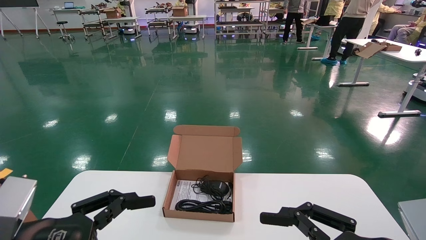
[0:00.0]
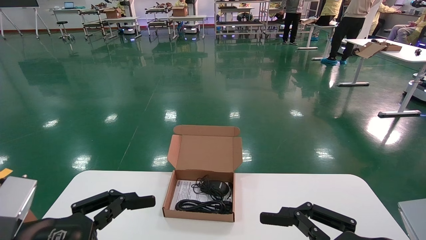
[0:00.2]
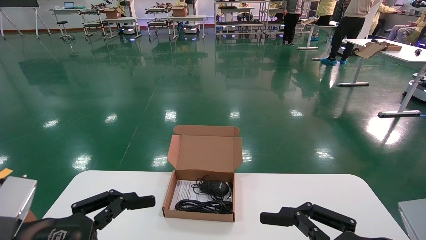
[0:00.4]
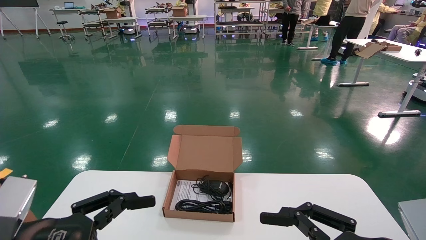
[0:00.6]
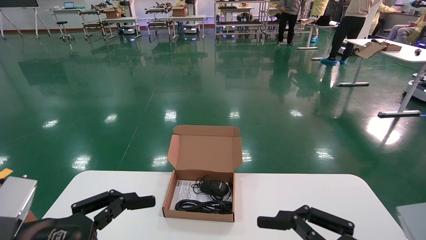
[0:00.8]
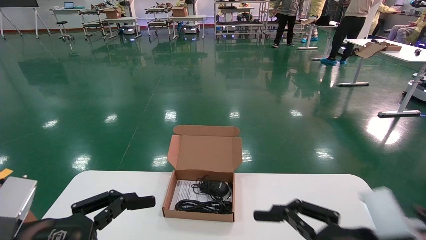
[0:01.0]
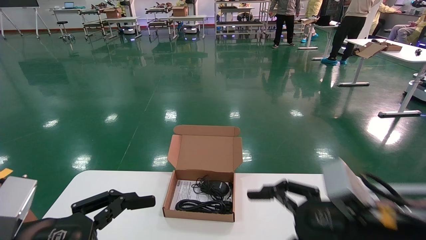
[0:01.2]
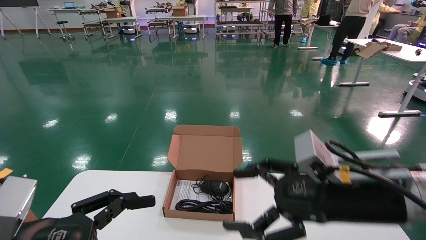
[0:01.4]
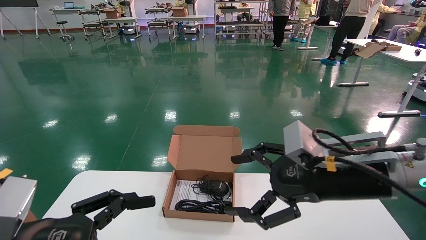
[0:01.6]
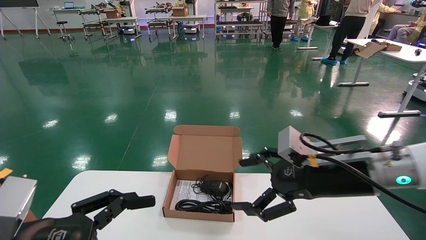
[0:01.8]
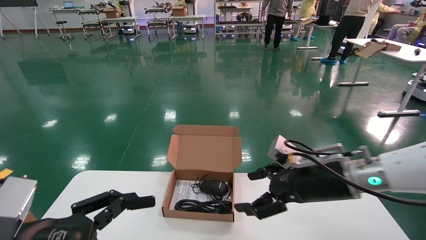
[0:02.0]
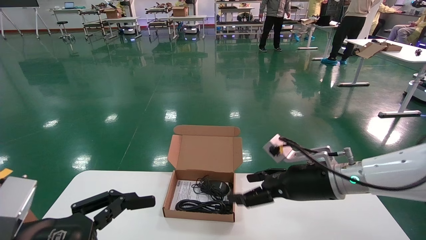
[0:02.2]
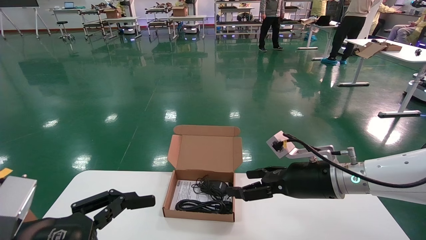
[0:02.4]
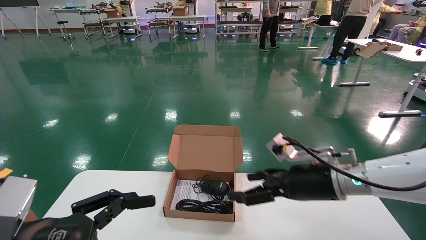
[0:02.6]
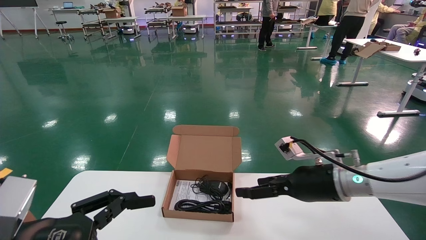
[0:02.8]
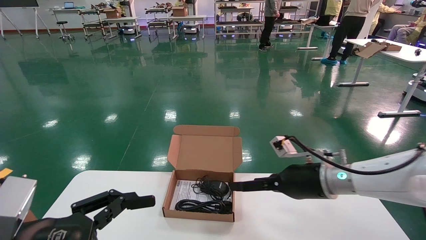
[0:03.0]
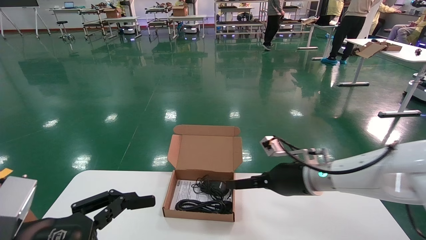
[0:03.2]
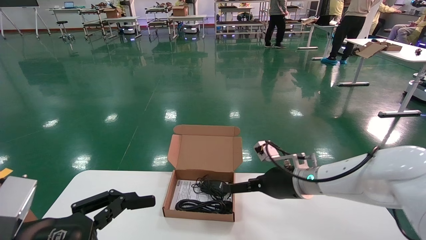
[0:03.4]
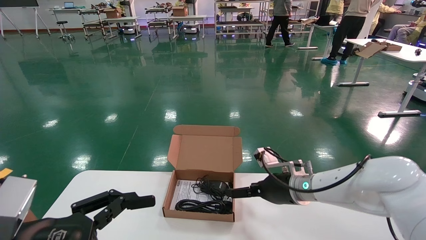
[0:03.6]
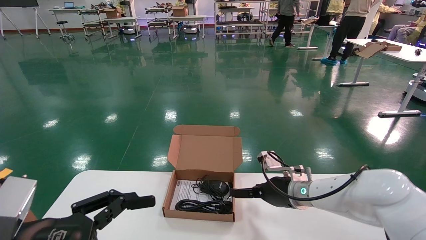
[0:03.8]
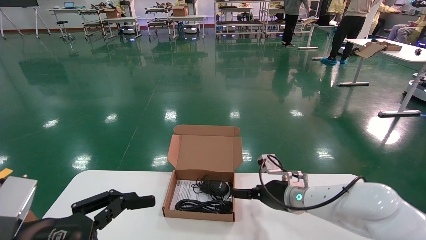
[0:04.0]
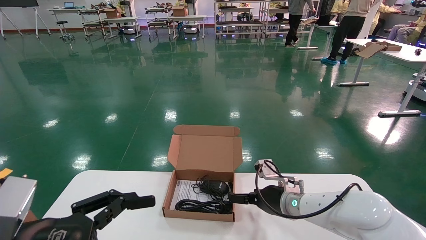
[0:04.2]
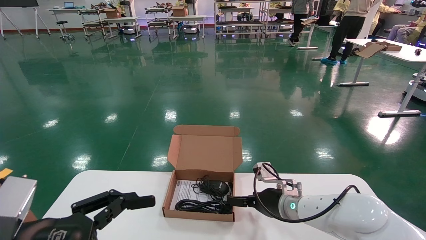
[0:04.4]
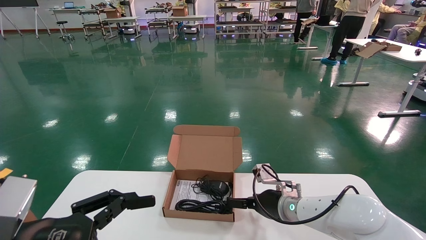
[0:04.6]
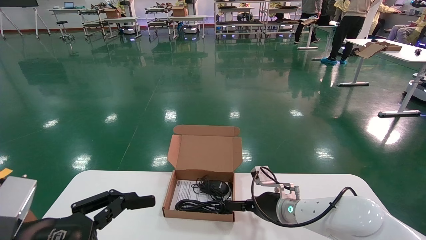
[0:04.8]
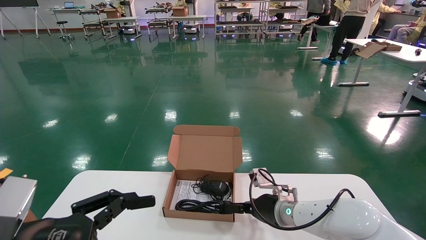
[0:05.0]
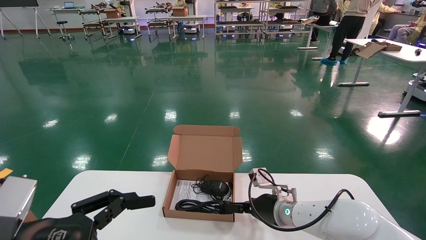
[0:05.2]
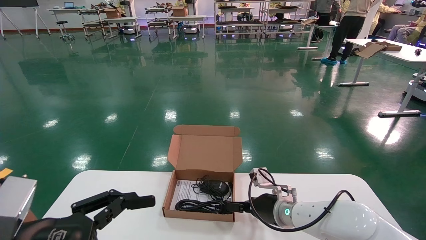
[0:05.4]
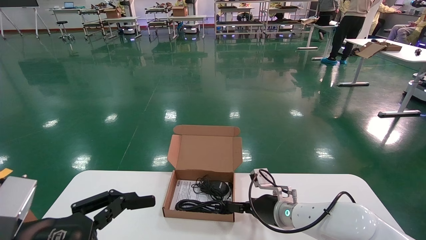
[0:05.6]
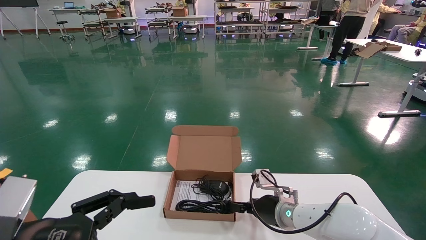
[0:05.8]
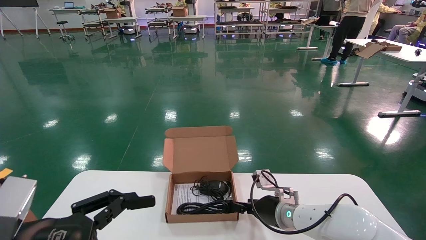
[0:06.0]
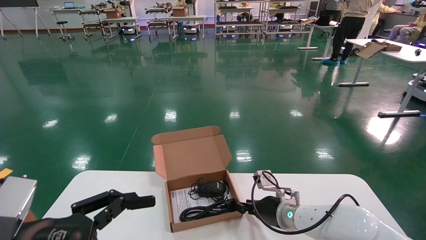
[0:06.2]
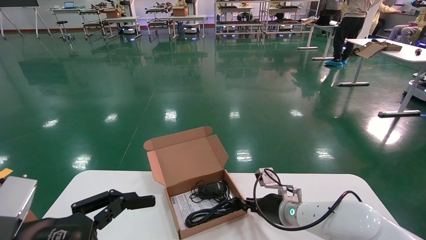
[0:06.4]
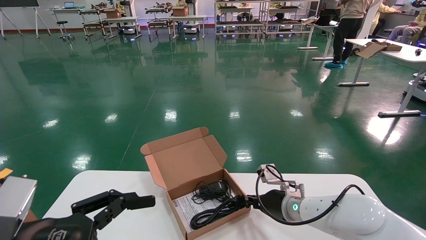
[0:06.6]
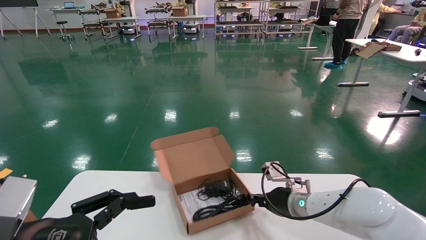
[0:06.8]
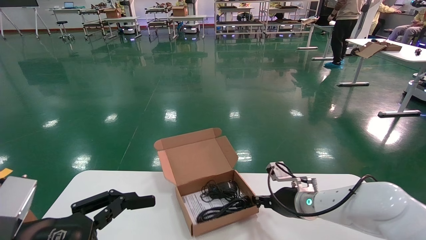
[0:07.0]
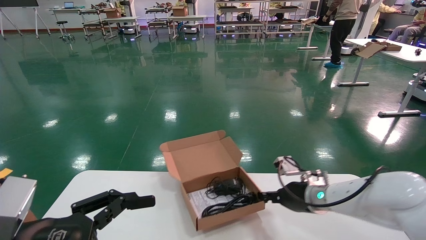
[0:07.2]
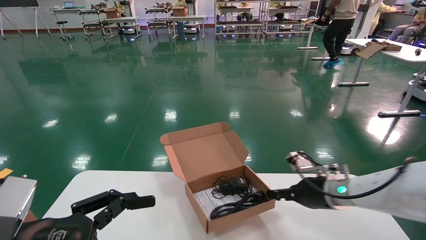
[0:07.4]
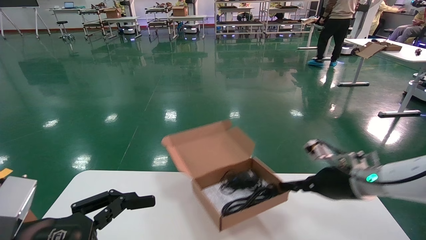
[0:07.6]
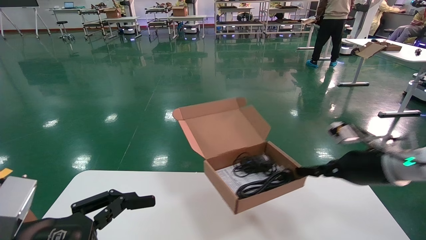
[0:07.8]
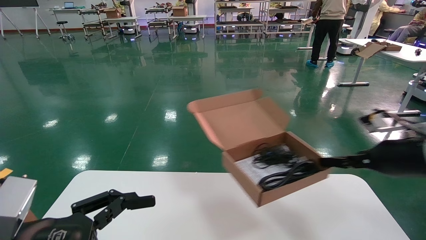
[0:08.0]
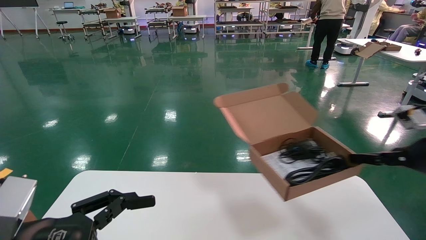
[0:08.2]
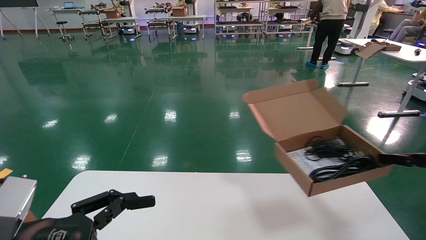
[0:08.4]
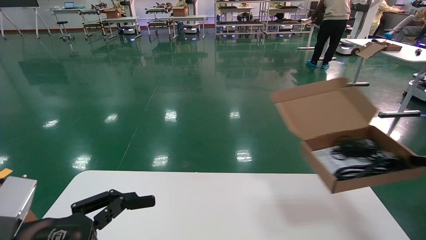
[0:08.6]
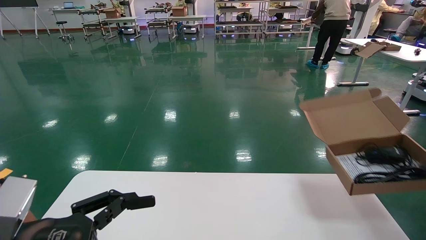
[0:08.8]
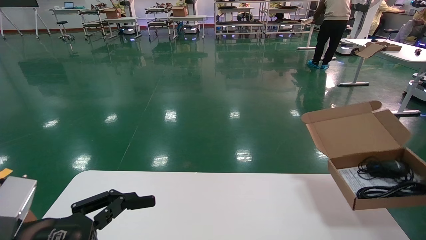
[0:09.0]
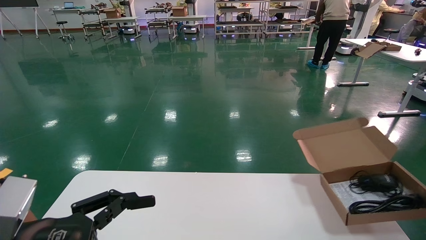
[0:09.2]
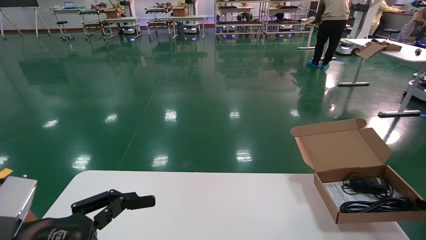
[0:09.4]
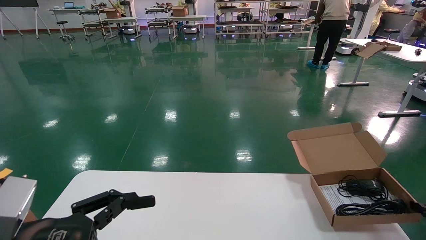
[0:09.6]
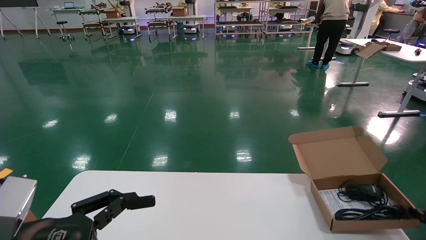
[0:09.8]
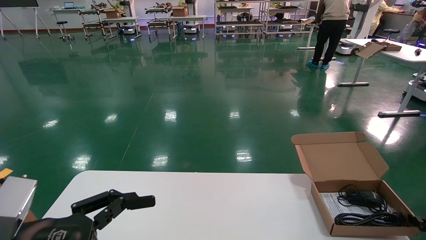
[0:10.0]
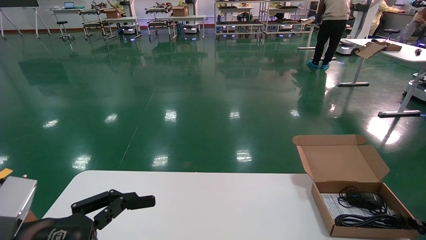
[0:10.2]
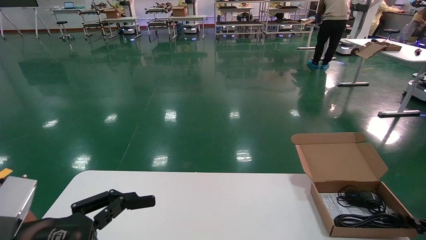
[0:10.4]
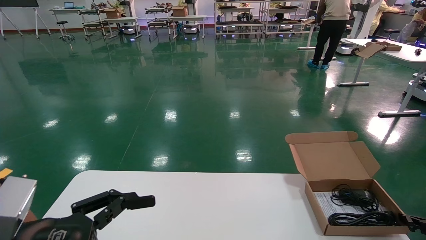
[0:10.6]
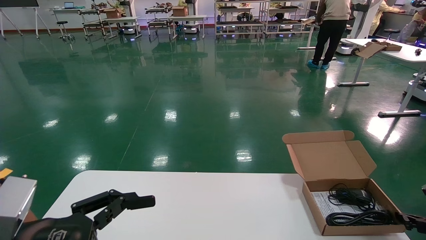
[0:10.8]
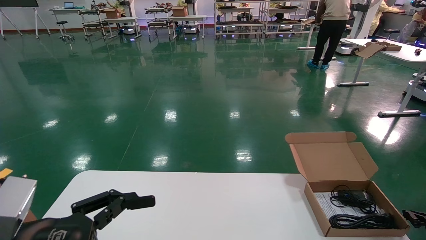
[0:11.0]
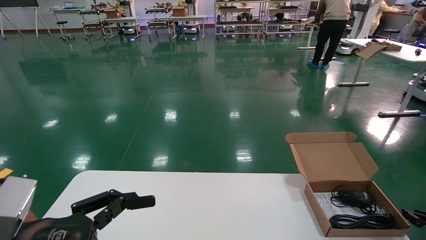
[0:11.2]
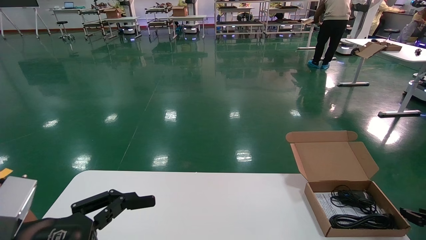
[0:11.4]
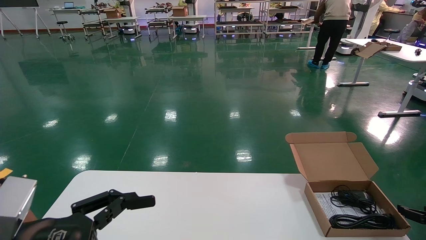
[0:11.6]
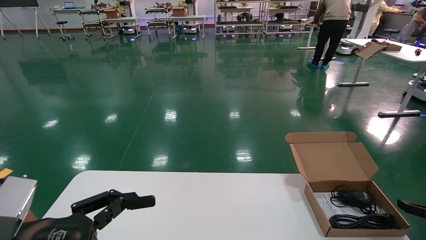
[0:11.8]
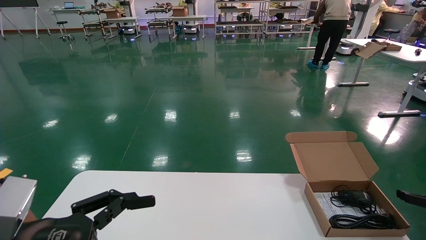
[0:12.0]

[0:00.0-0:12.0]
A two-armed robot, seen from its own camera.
Task of the whole recording: move the position of the storage box with accessories on the table.
Step, 0:01.0 to 0:06.8: Grab and pick up the open mouse box from the accessory packaging area.
Step, 0:07.0 to 0:11.0: Place the open mouse box onto the operation table.
0:00.0 to 0:01.6: The right gripper shifts roughly 15 cm forward and upward.
0:01.6 to 0:03.0: The right gripper travels forward and downward by some 15 cm.
0:03.0 to 0:04.4: The right gripper goes roughly 10 cm downward and forward.
0:04.4 to 0:06.0: The right gripper closes.
0:06.0 to 0:07.6: The right gripper heads to the right, upward and backward, covering approximately 20 cm, and closes up.
0:07.6 to 0:09.0: The right gripper heads to the right, covering about 25 cm.
0:09.0 to 0:10.4: The right gripper goes roughly 10 cm downward.
0:10.4 to 0:12.0: The right gripper heads upward, covering roughly 5 cm, and opens its fingers.

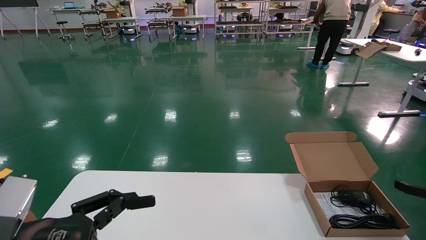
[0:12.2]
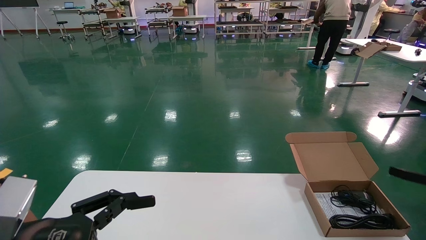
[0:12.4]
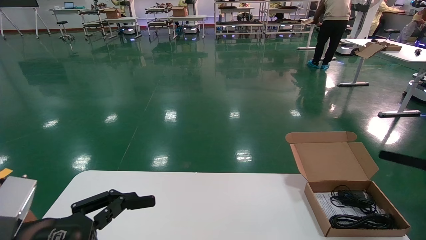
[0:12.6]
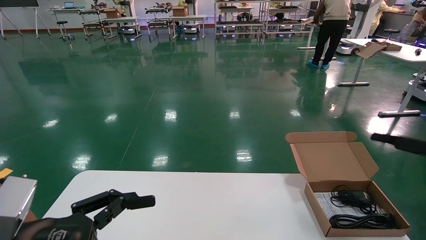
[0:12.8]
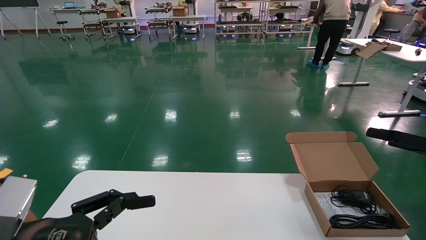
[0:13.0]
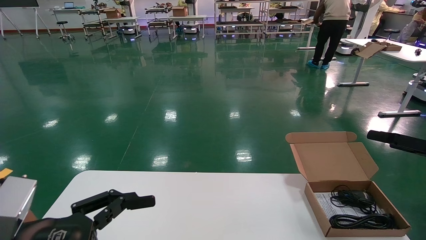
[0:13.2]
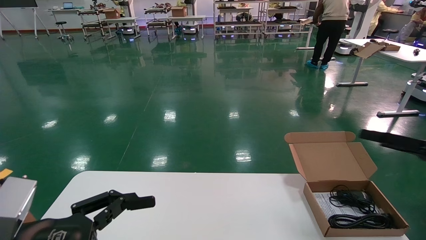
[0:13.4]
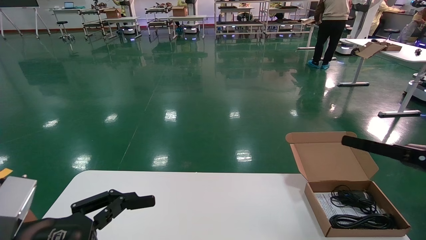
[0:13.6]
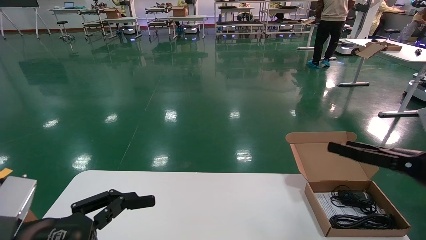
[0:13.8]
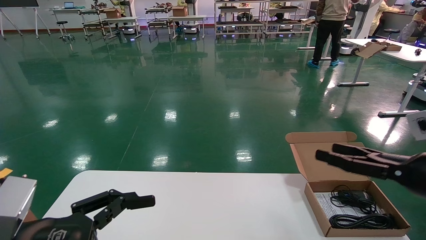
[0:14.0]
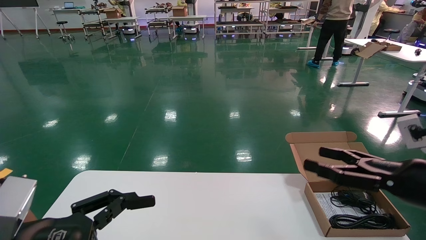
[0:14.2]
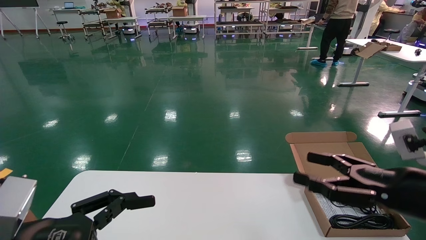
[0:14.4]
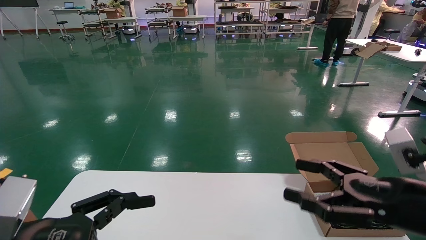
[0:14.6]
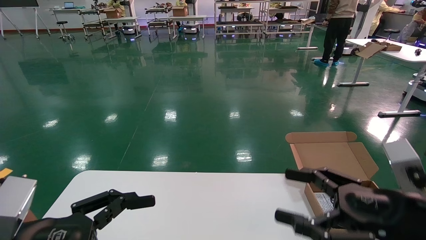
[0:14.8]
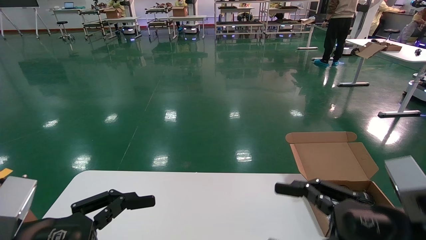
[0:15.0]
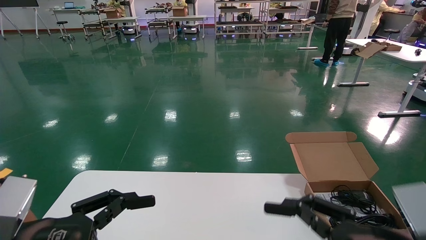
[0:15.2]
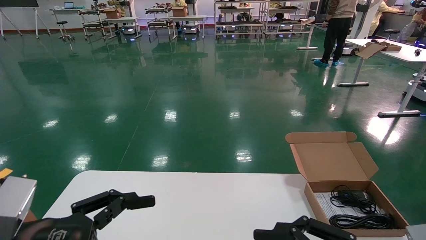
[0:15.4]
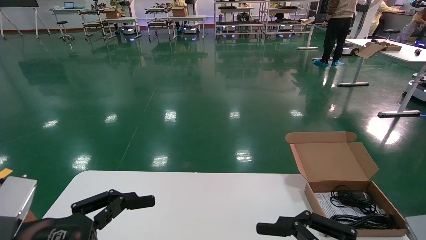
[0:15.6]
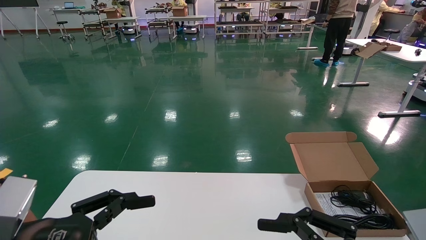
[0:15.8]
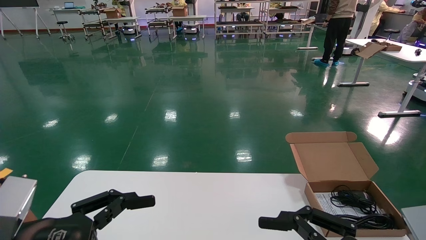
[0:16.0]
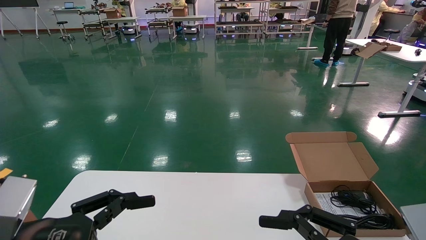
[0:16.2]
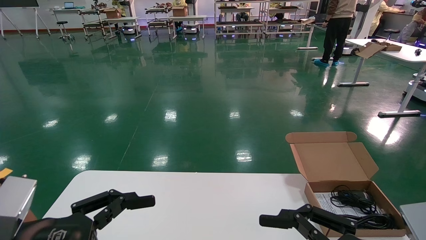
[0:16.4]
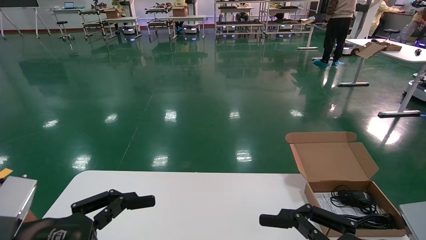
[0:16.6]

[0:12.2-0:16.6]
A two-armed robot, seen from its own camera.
Task of the whole recording: move the position of the storage box with accessories on the table.
0:12.2 to 0:13.6: The right gripper heads to the left and upward, covering about 10 cm.
0:13.6 to 0:15.2: The right gripper heads to the left and backward, covering about 20 cm.
0:15.2 to 0:16.6: The grippers move only a little.
